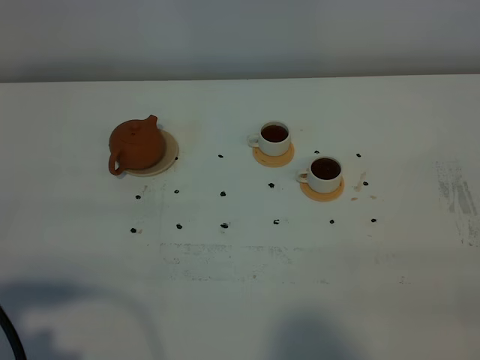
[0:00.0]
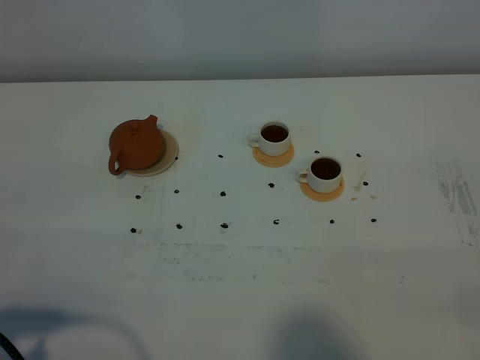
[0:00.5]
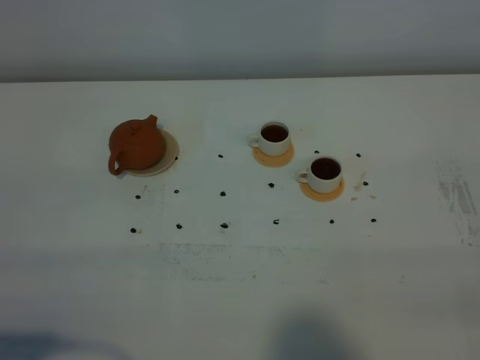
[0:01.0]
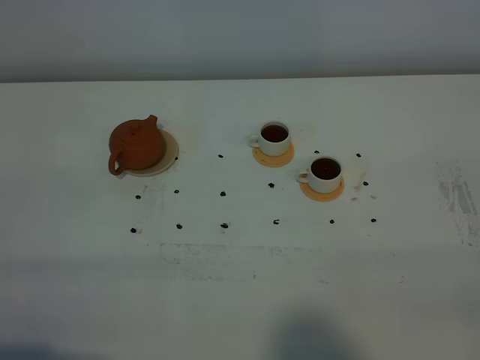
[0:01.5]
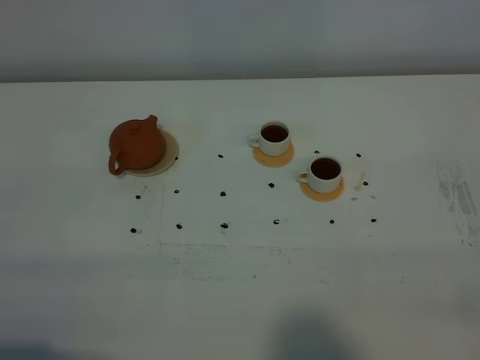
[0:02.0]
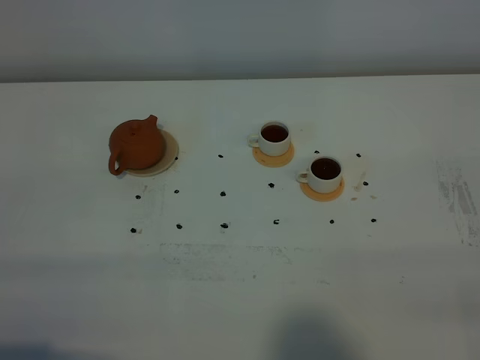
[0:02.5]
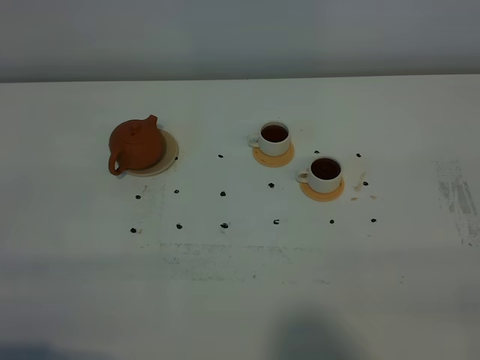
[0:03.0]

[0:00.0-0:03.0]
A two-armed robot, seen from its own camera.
Task of the whole recording: grasp the brown teapot and pour the tea into the two white teacups one by one, put the brown teapot back in its original place.
0:00.0 to 0:01.5: The left gripper moves some 5 cm.
0:01.5 to 0:03.0: The two grippers keep their place.
